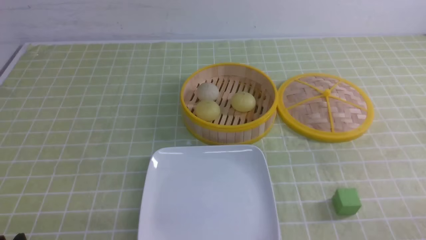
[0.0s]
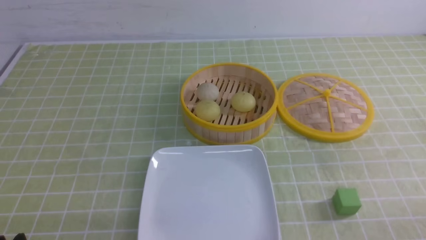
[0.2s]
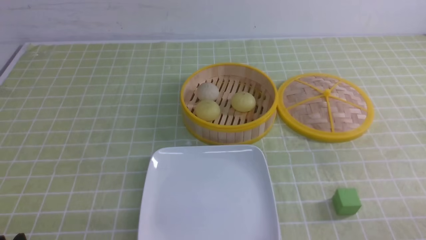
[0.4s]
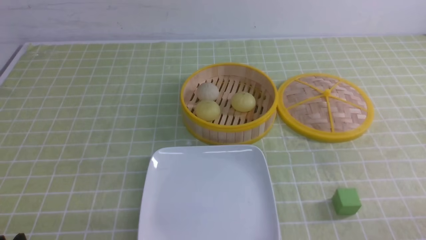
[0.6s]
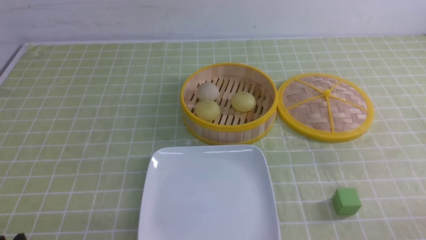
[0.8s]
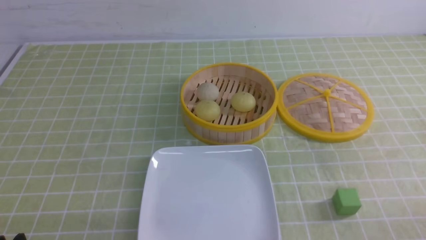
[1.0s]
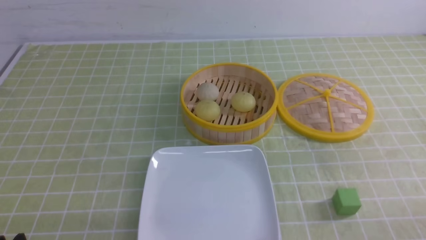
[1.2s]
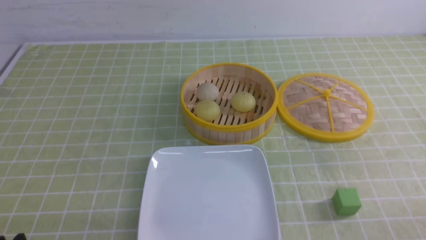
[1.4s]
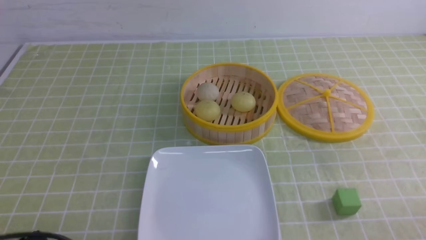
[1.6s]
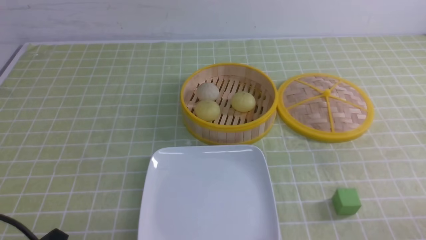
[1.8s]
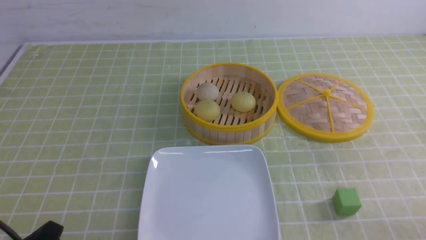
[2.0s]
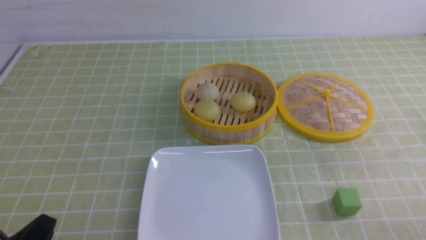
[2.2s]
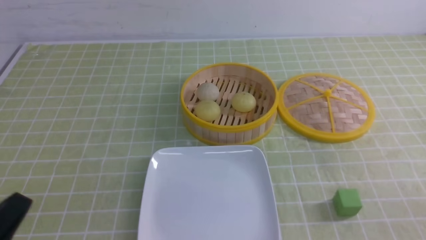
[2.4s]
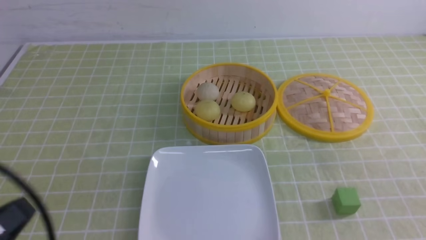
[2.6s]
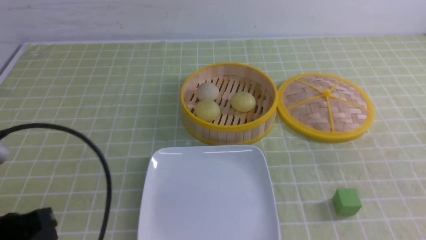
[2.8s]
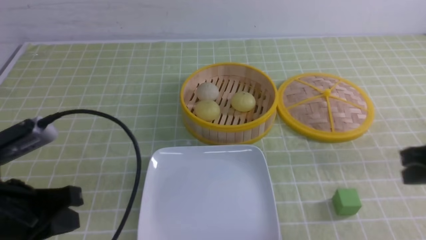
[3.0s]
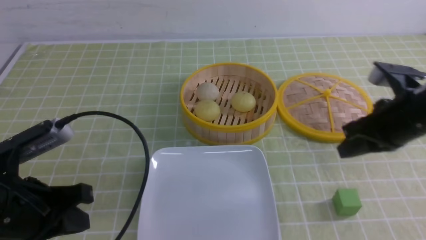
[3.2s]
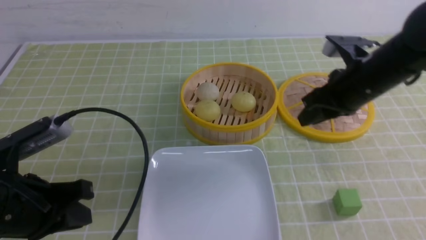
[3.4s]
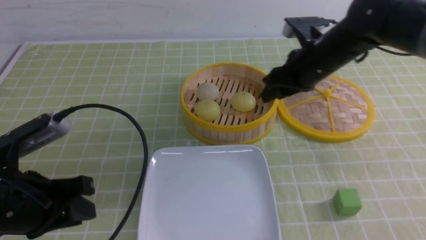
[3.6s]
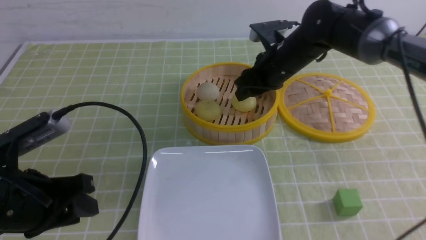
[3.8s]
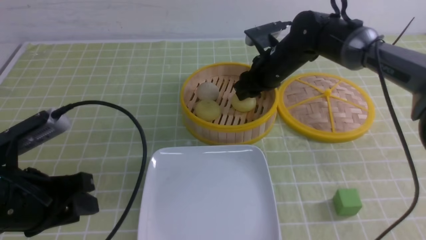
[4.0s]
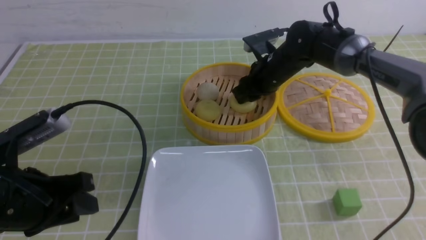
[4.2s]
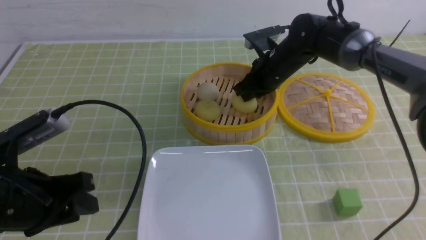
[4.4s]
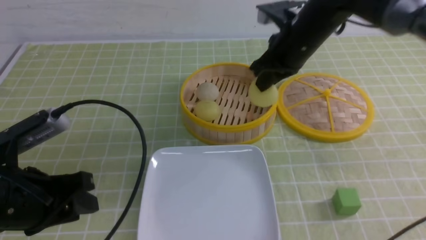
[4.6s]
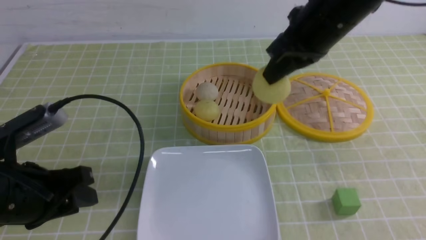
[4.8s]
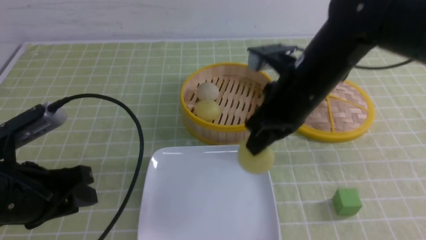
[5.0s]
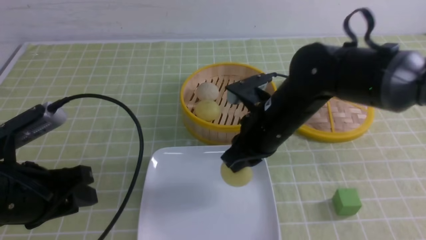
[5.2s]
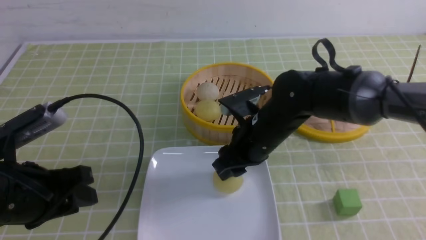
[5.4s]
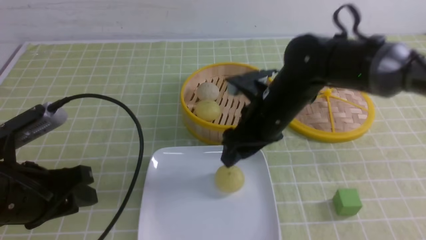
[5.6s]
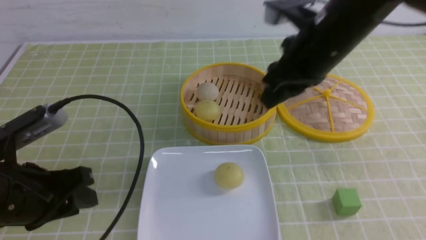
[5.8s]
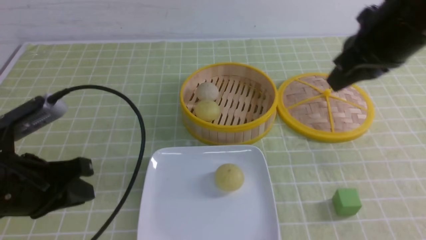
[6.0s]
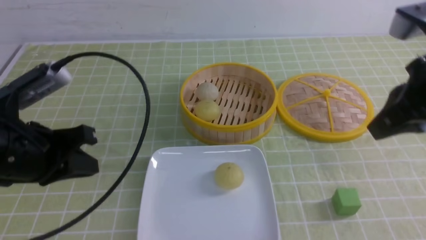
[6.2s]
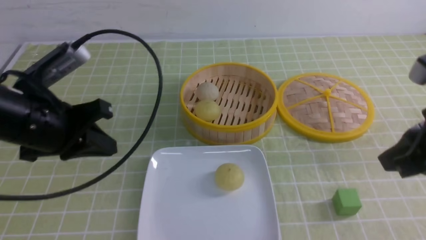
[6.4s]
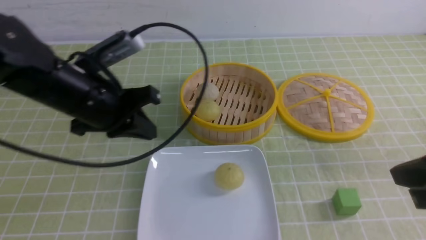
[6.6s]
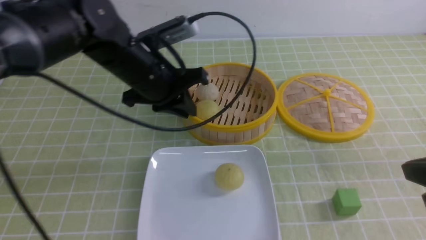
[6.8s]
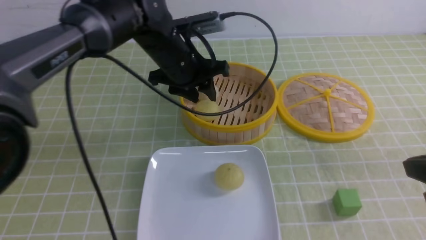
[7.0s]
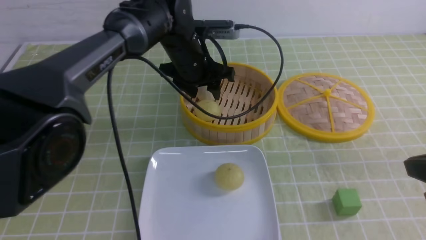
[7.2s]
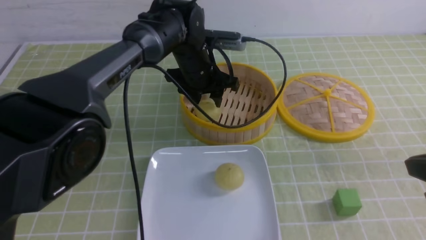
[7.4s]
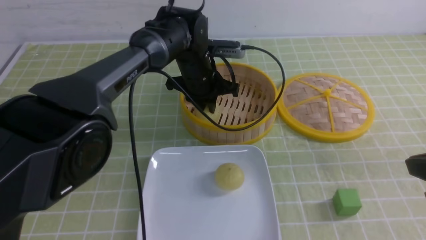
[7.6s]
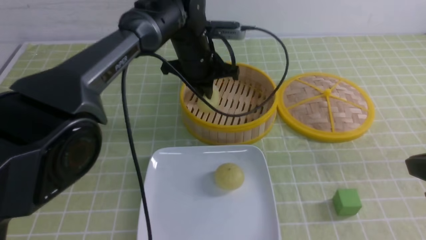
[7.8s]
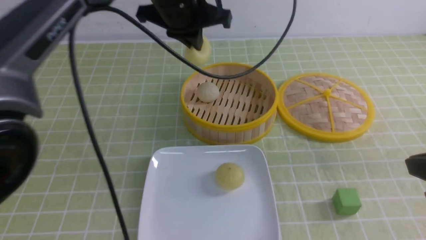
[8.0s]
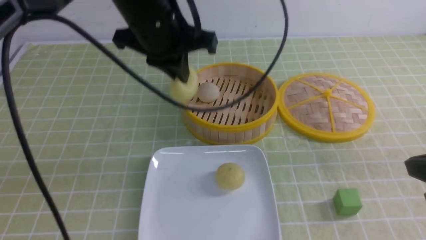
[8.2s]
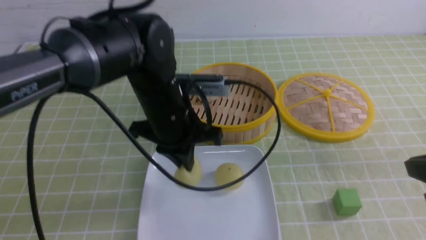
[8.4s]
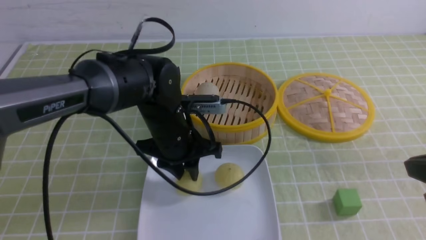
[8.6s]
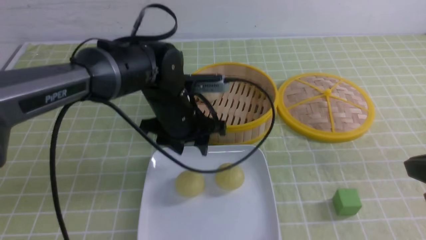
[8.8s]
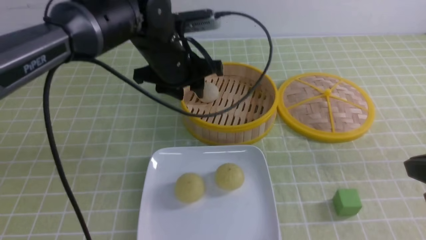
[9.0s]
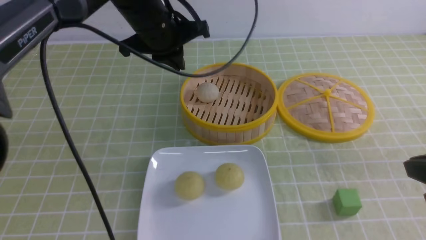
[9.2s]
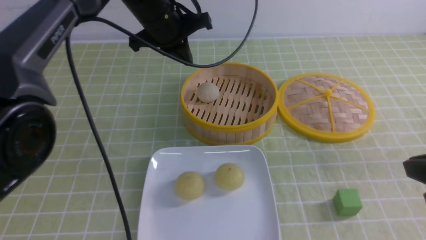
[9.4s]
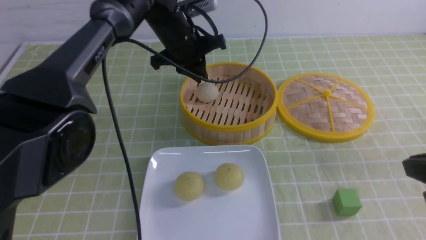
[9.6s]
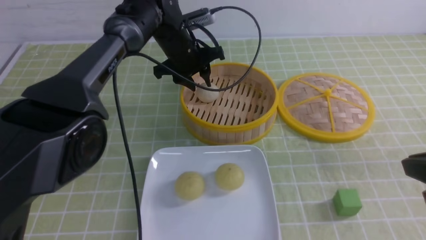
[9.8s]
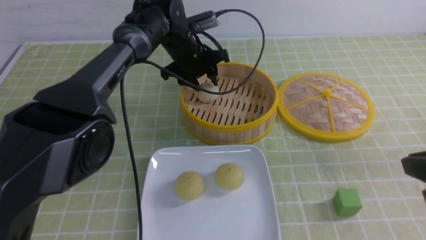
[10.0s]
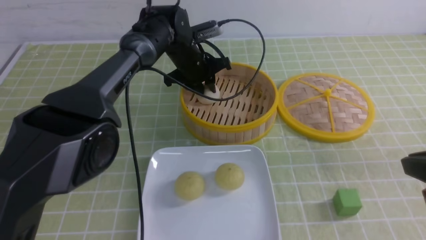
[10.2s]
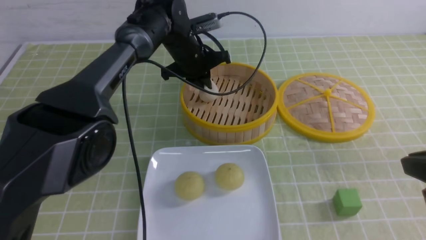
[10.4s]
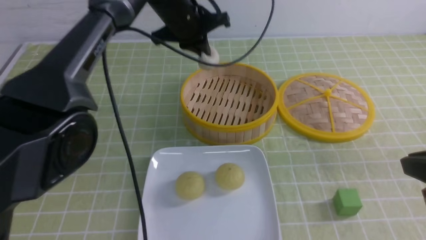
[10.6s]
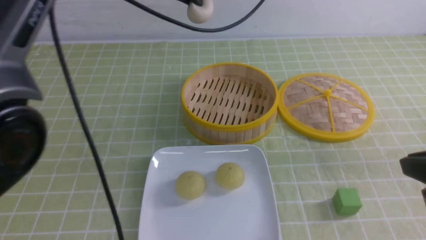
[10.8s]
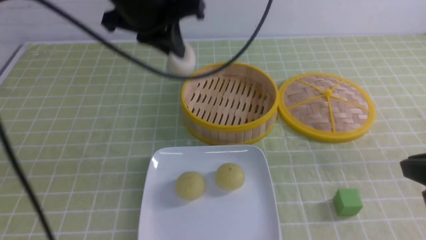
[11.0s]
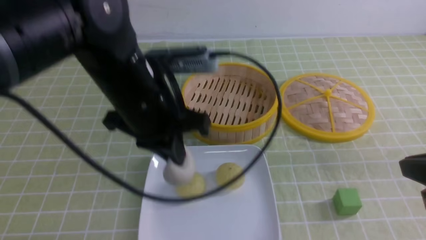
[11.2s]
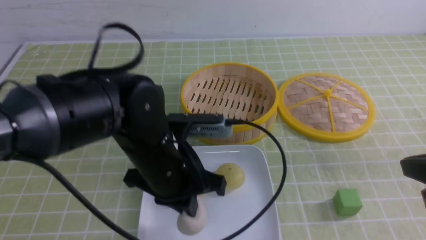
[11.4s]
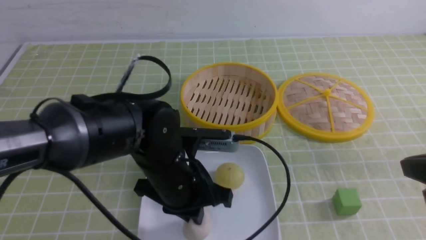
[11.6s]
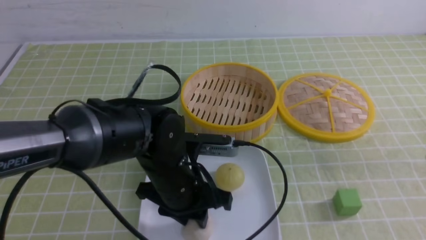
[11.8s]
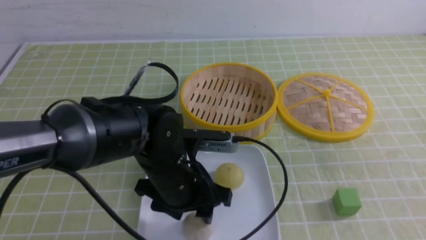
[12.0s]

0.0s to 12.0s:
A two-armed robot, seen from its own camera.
Step, 0.0s to 4.2s: use the right arm to grab the steamed stuffed bun that is closest to it.
Step, 4.6s to 5.4s: use the right arm to put the steamed stuffed bun into the plate.
Step, 5.8s to 7.6s: use the left arm to grab the steamed stuffed bun that is closest to it.
Step, 7.8s to 8.6s: use the left arm to put the steamed stuffed bun into the plate.
Step, 8.8s to 10.2s: use the left arm to grab the steamed stuffed bun that is closest to it.
Step, 10.4s to 11.8s: use the left arm to put the steamed stuffed bun into the plate.
1.6s to 3.0s: The left gripper heads upward and forward, covering some 15 cm, and closes up. The right gripper travels forward and upward by some 20 cm, and closes its fingers.
3.0s to 4.4s: The right gripper shifts some 30 cm forward and to the left, and opens, then closes once more; the left gripper opens its fingers.
4.4s to 6.0s: The right gripper shifts approximately 25 cm backward, upward and to the right, and opens, then closes once more; the left gripper closes.
6.0s to 7.6s: The left gripper is displaced forward and to the right by some 35 cm, and opens, then closes again, while the right gripper heads backward, to the right and downward, covering some 15 cm.
7.6s to 9.0s: The left gripper goes up and down, some 10 cm each way, reversing 2 times, and closes, then reopens.
9.0s to 10.4s: The left gripper travels forward by roughly 10 cm, and closes.
10.4s to 12.0s: The right gripper shifts approximately 10 cm backward and upward, while the left gripper travels backward by roughly 25 cm, and opens its fingers.

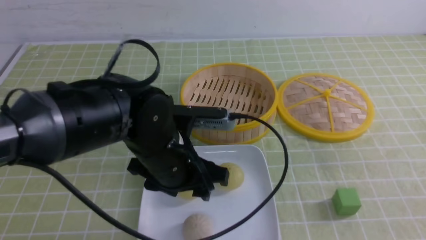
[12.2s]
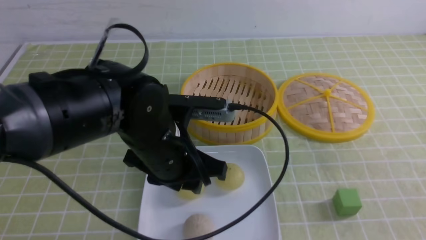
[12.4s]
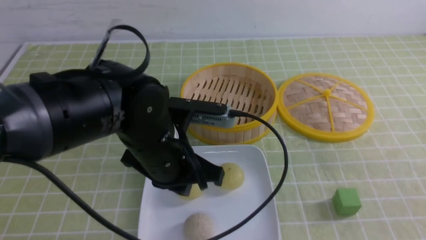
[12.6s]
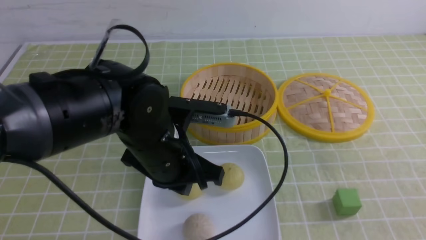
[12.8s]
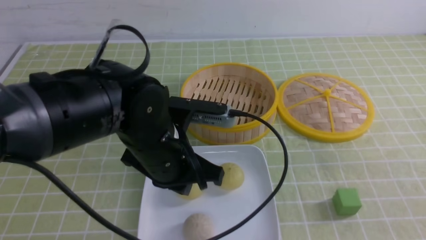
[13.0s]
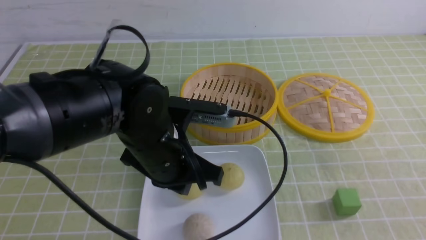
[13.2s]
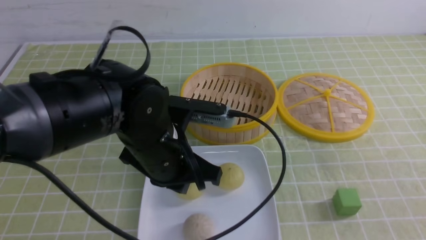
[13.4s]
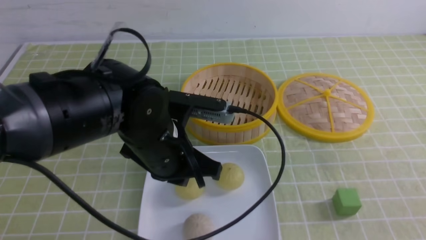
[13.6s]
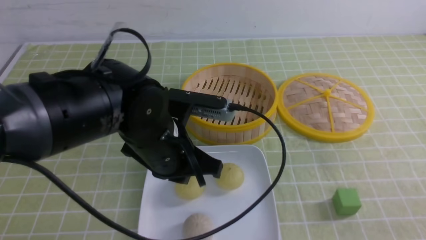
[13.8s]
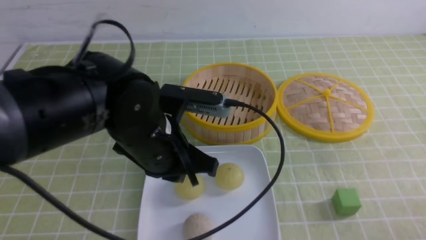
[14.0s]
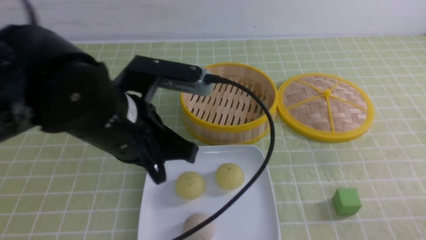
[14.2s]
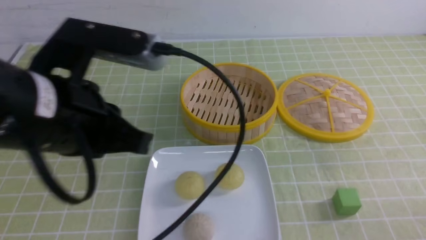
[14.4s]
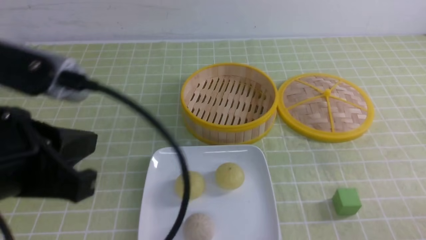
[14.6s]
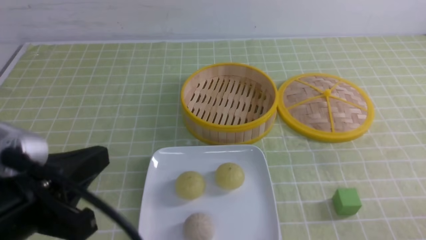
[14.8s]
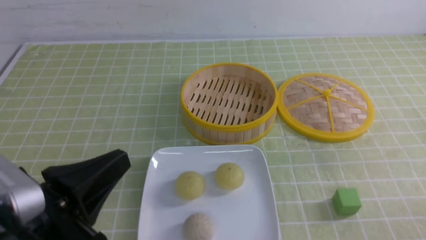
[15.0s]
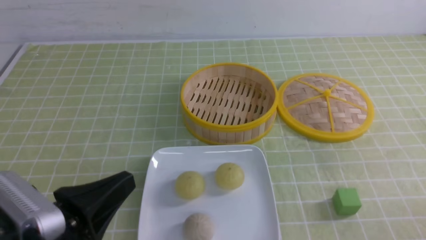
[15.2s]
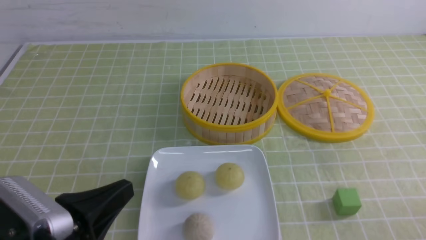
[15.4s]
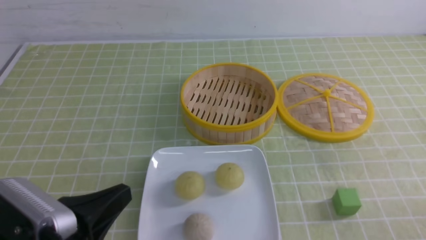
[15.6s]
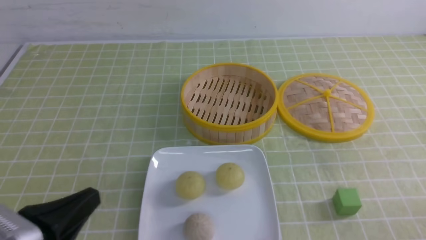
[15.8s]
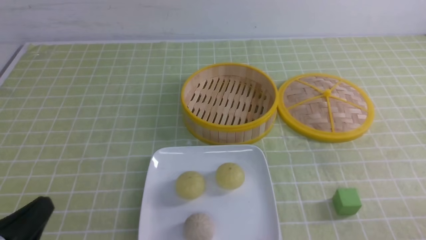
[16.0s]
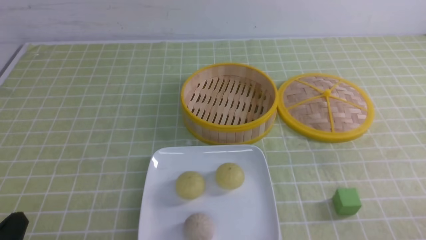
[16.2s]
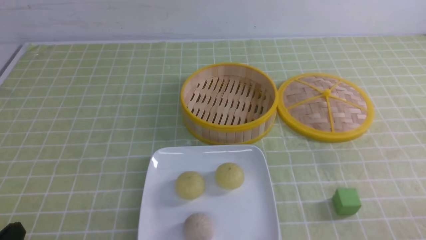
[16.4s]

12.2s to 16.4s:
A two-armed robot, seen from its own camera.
12.2s to 13.6s: The right gripper shifts approximately 5 cm downward. Meanwhile the left gripper closes.
13.6s to 15.0s: The right gripper is displaced downward by some 10 cm, while the left gripper goes approximately 20 cm backward and to the left.
15.0s to 16.4s: The left gripper shifts about 15 cm downward and to the left.
